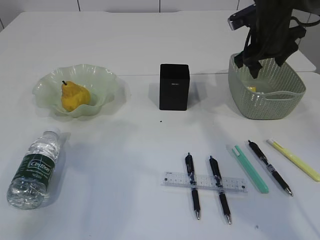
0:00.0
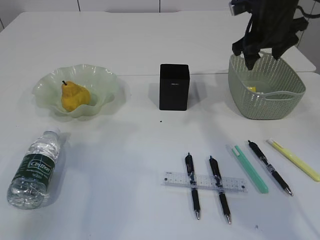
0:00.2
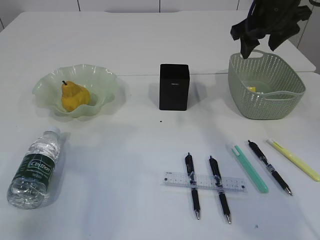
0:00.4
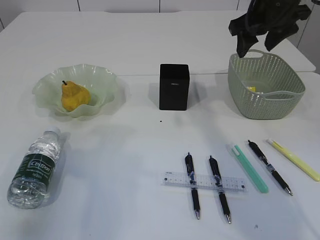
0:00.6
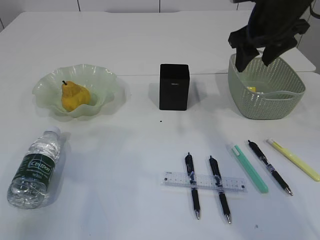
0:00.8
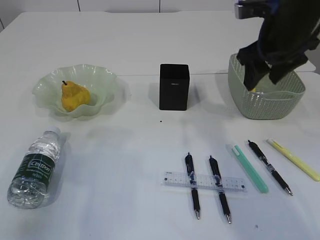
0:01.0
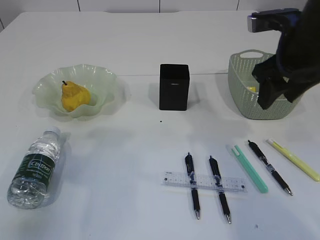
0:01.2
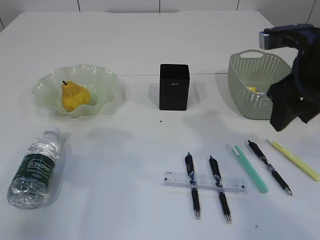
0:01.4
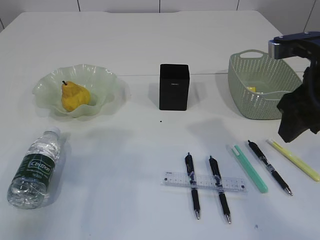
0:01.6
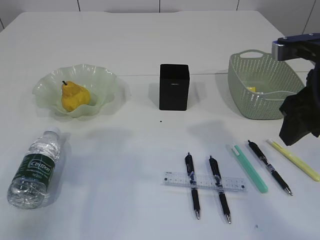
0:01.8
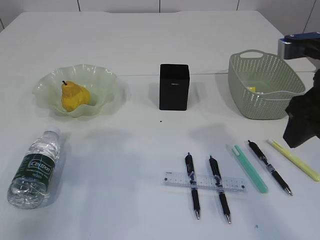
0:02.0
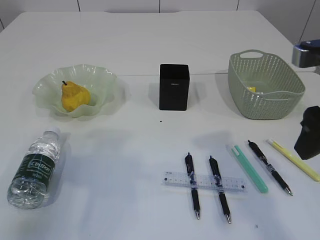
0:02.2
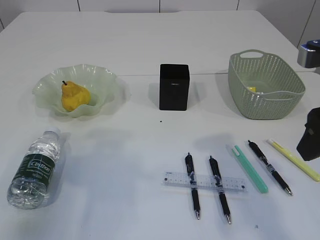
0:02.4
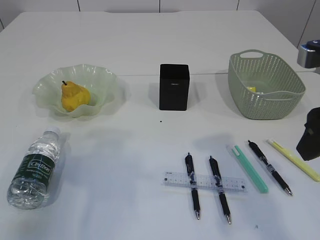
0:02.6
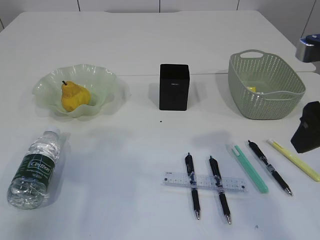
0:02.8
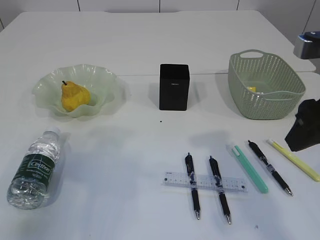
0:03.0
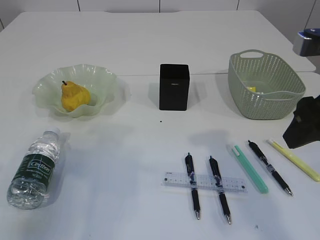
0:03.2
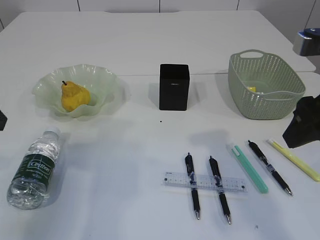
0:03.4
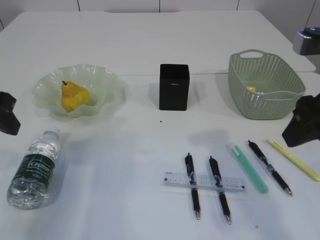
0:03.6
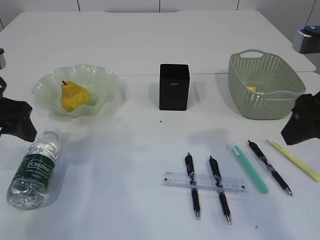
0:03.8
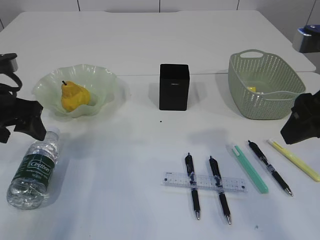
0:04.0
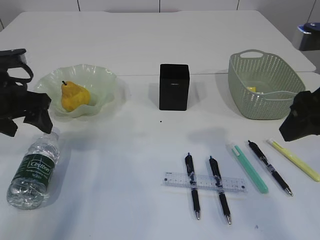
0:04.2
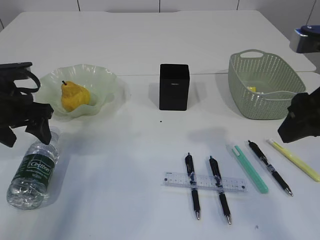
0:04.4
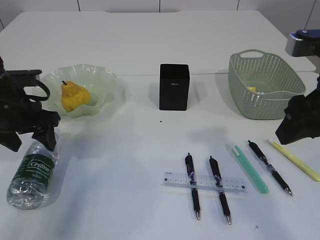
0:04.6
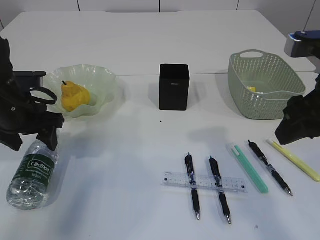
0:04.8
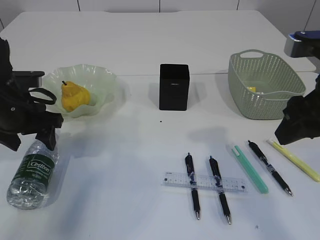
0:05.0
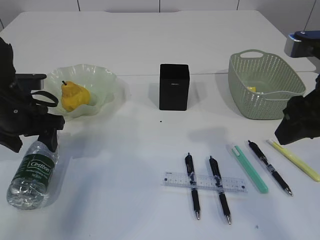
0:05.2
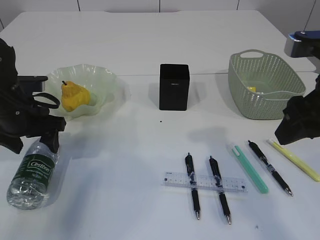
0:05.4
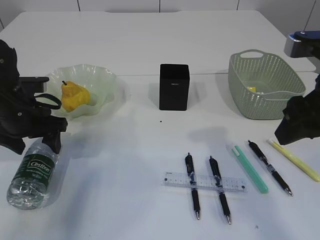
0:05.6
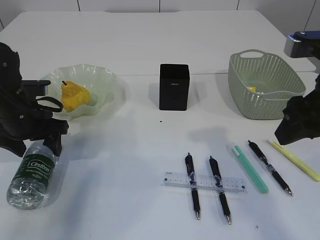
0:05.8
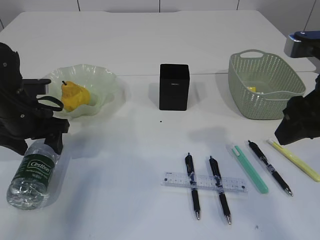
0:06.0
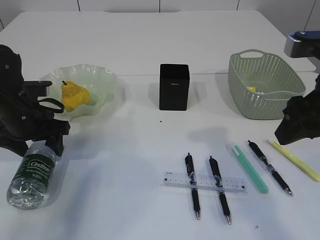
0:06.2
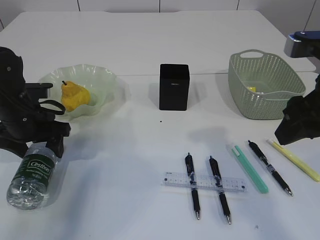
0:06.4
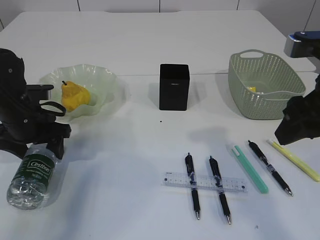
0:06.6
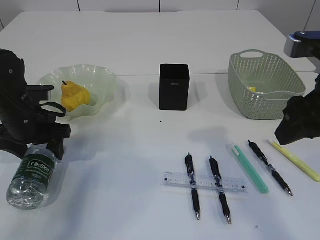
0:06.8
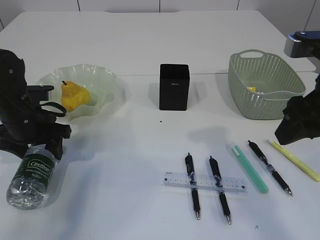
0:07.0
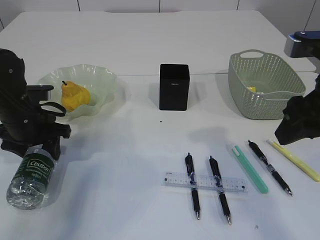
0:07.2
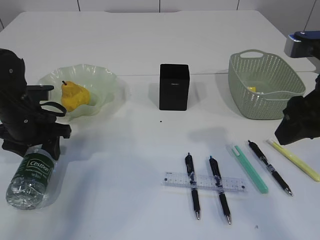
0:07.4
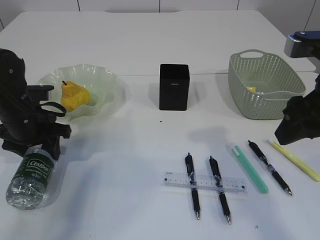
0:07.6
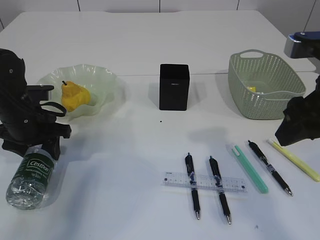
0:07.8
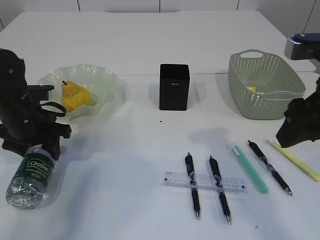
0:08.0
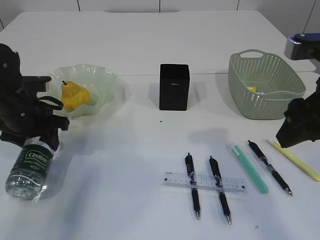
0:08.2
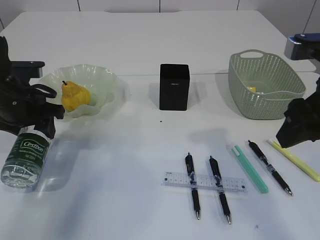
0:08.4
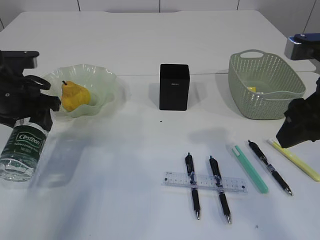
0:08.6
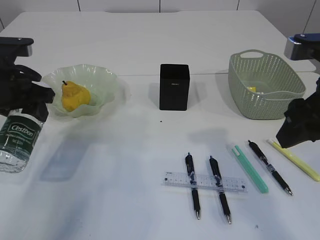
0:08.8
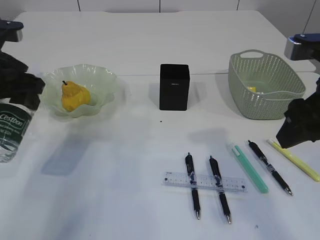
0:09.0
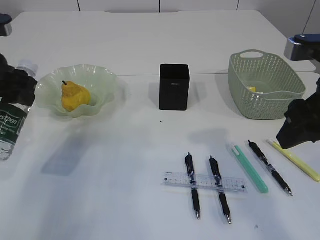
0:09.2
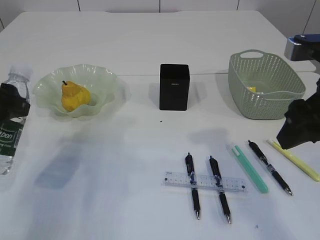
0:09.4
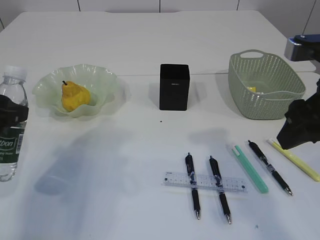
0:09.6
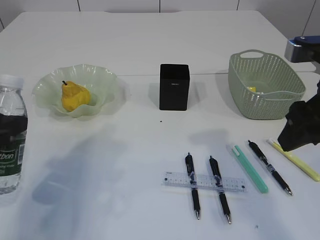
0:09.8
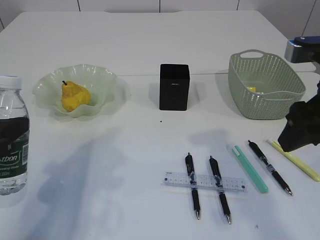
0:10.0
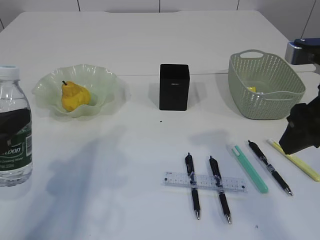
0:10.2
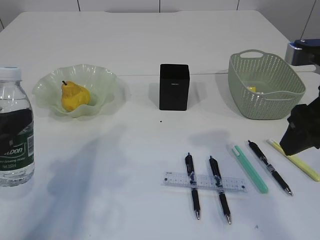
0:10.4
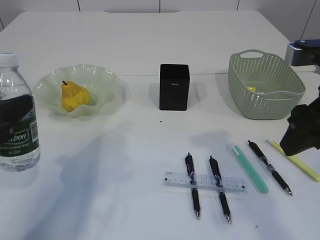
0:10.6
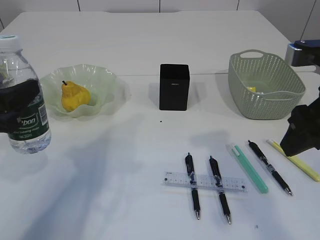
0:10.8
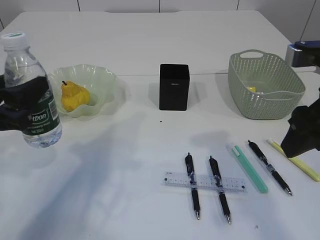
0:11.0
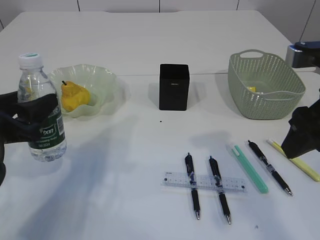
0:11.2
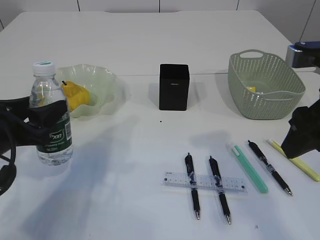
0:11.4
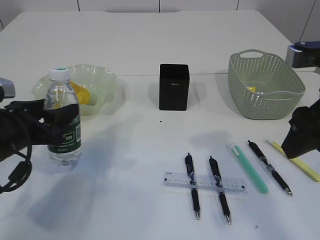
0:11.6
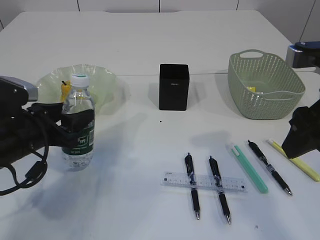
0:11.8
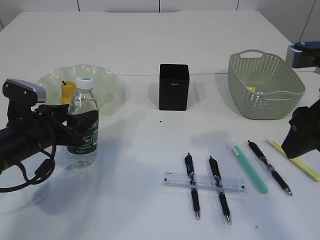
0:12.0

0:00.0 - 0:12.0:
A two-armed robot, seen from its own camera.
Step, 0:00.4 - 0:08.4: Pick up the bottle with the left arm.
0:00.0 - 0:01.6: The right gripper heads backward, covering about 20 cm.
0:01.6 - 0:03.0: The grippers make only small movements.
0:03.0 - 0:04.4: The left gripper shifts about 15 cm forward and downward, and opens.
0:04.4 - 0:06.0: There are only small adjustments of the grippers.
0:06.0 - 0:07.6: The left gripper closes its fingers.
0:07.6 - 0:09.0: The left gripper moves upward, some 10 cm.
0:09.0 - 0:10.4: The left gripper moves backward, approximately 15 cm.
0:10.4 - 0:12.0: The left gripper moves forward and downward, about 15 cm.

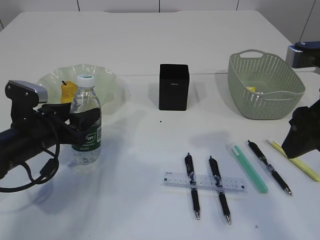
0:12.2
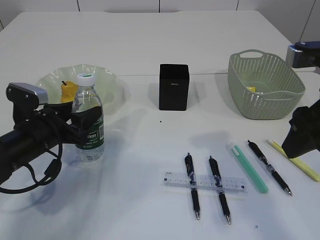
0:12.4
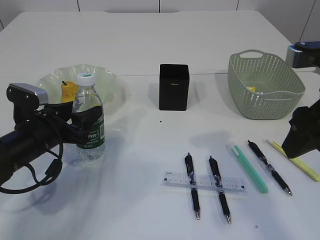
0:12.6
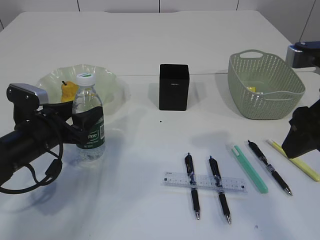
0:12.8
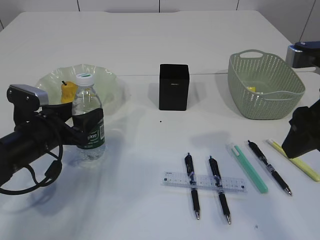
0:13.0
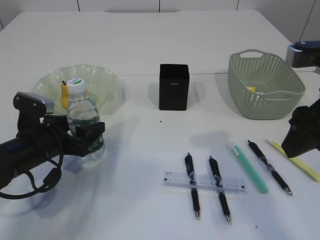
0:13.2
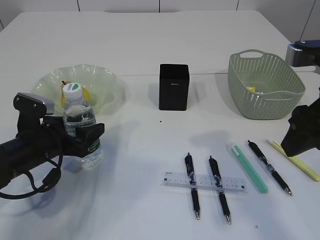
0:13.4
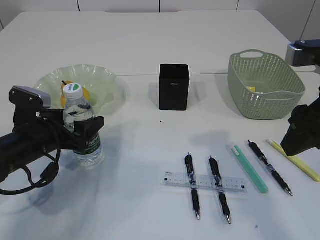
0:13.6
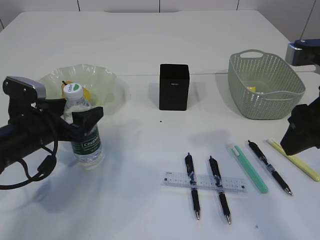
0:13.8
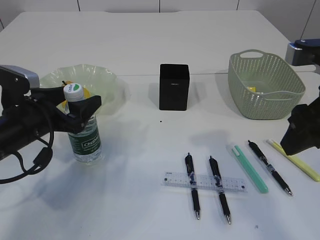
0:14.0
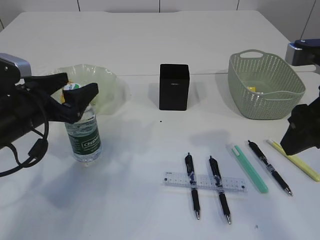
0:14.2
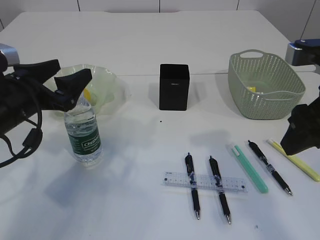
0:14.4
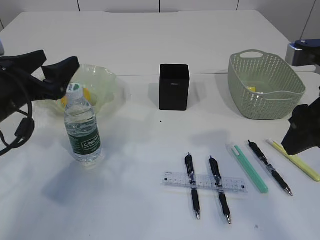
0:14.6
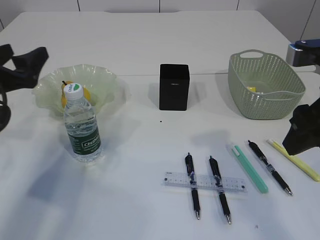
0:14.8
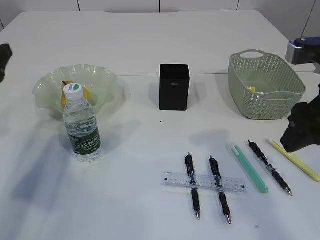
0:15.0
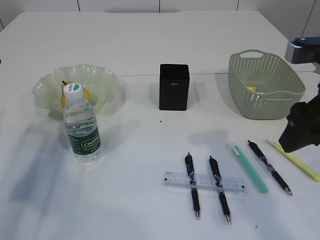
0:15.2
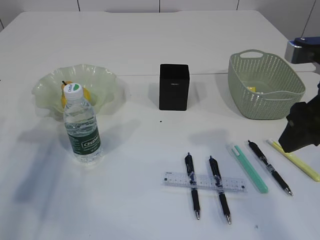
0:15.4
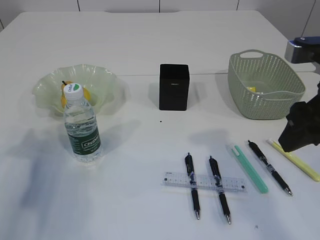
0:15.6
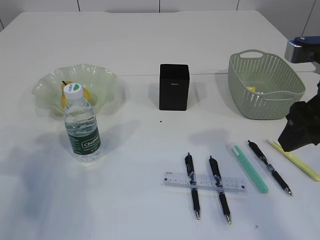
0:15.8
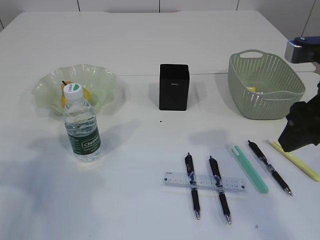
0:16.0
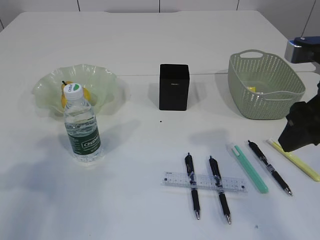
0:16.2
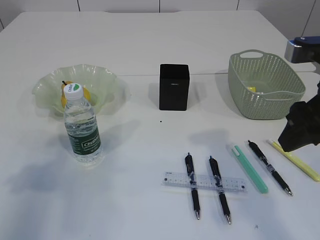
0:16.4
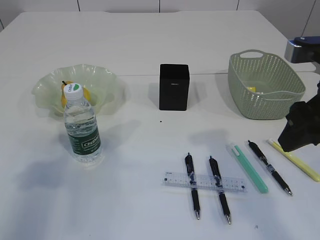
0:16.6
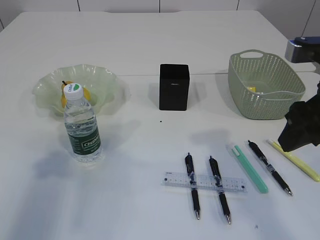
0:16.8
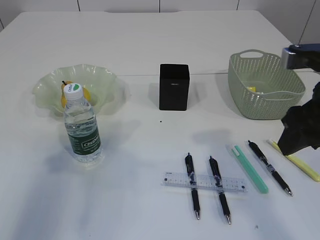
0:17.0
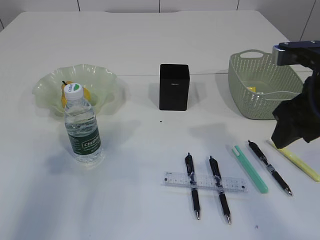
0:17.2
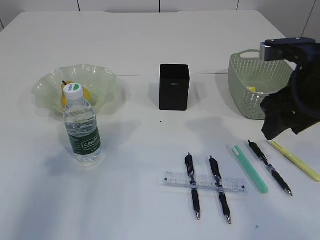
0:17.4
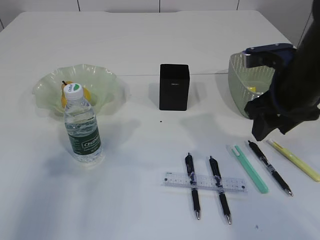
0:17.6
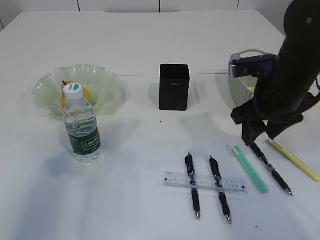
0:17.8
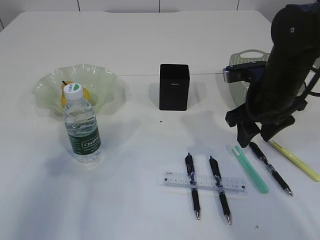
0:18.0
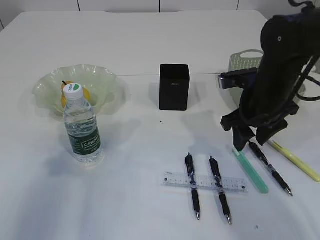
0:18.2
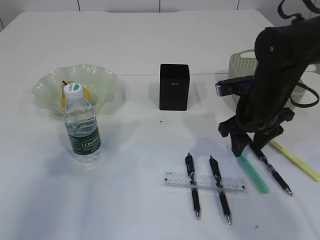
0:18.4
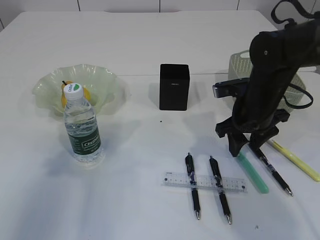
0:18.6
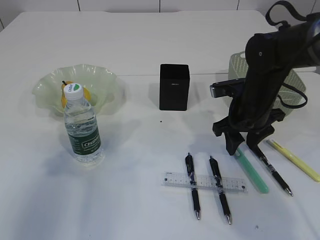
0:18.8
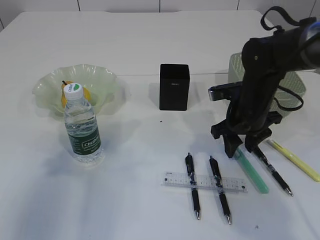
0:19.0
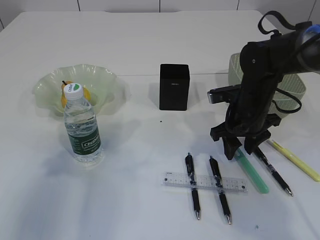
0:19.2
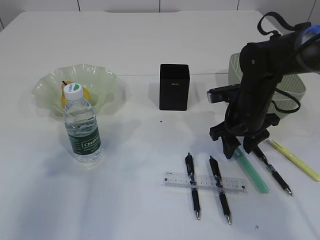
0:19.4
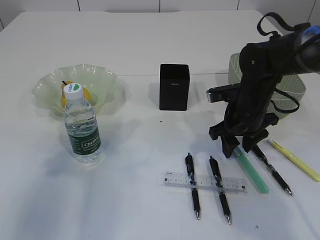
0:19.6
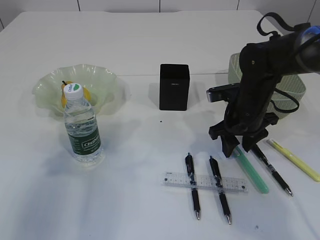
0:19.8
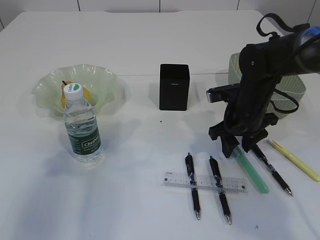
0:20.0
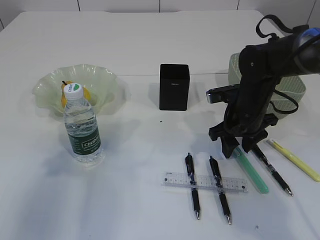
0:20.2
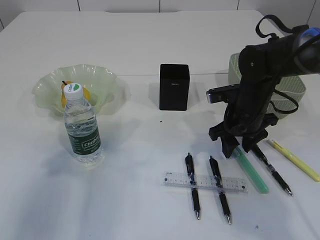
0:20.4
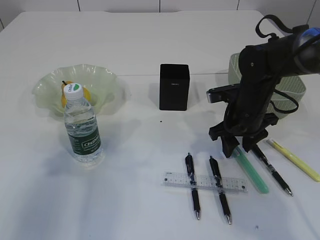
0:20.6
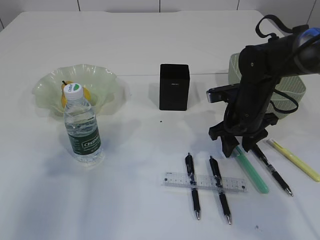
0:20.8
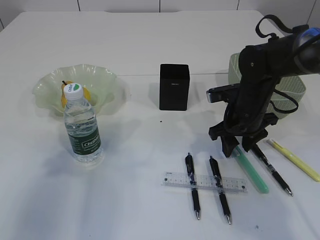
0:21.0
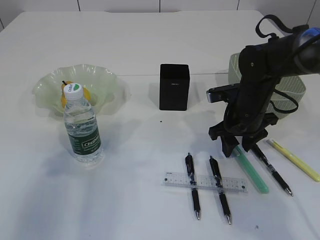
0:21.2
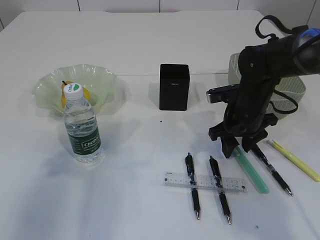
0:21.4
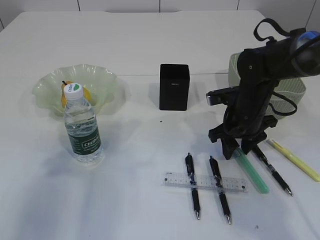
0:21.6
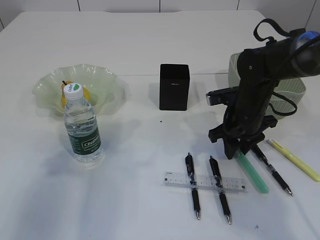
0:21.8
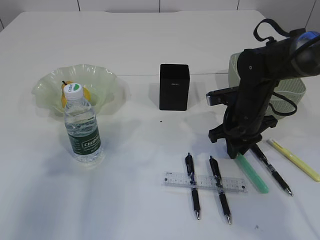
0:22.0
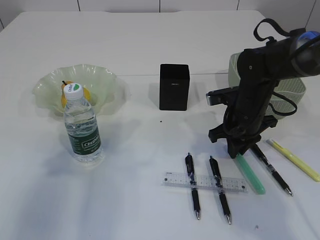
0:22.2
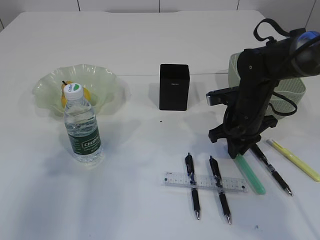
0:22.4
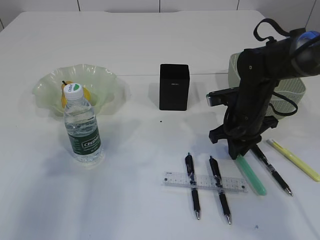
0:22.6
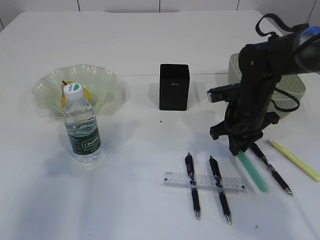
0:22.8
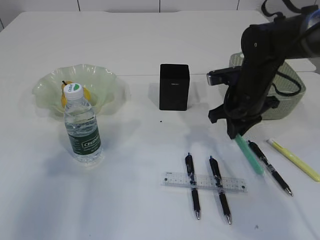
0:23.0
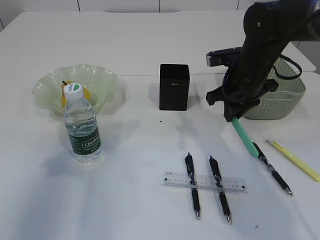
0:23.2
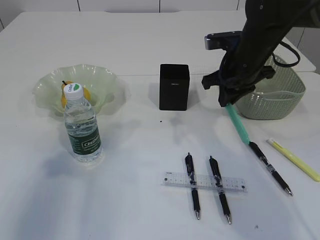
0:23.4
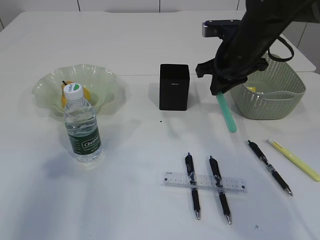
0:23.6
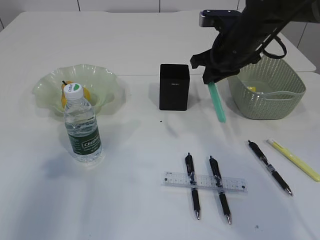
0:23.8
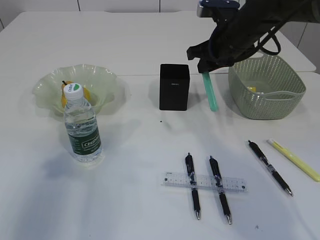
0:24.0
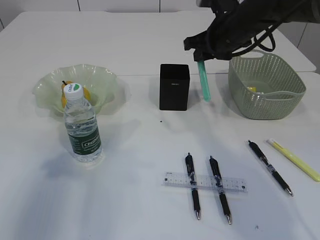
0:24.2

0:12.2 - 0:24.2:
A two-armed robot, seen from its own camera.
Step, 0:12.2 - 0:14.4: Place the bottle.
Step, 0:14.6 - 0:22.8: pick up the blue knife.
0:12.2 - 0:13.8: The left gripper opens.
0:13.8 - 0:15.2: The left gripper heads to the left and upward, covering roughly 15 cm.
0:15.2 - 0:16.6: The left gripper goes about 15 cm backward and upward.
0:16.6 - 0:18.2: The right gripper heads forward and downward, covering roughly 15 cm.
0:18.2 - 0:19.8: The right gripper moves downward, roughly 5 cm.
0:19.8 - 0:21.2: The two grippers keep their place.
0:21.2 - 0:22.6: The right gripper closes up.
0:22.6 - 0:24.2: The right gripper shifts about 15 cm upward and forward.
